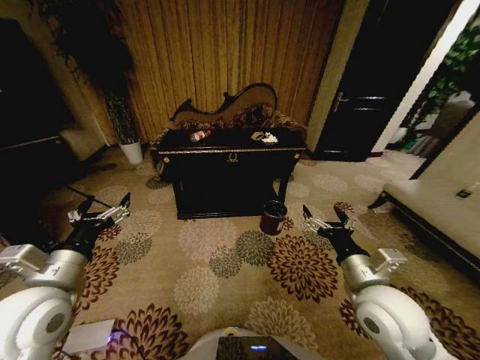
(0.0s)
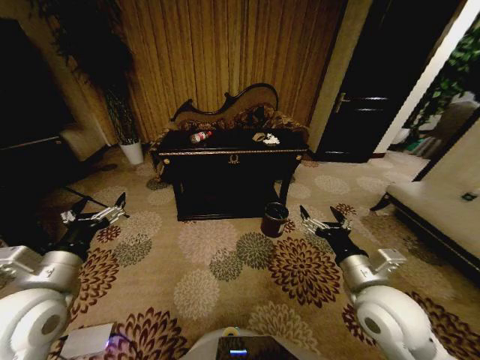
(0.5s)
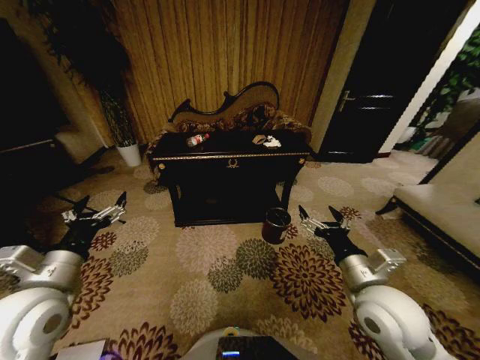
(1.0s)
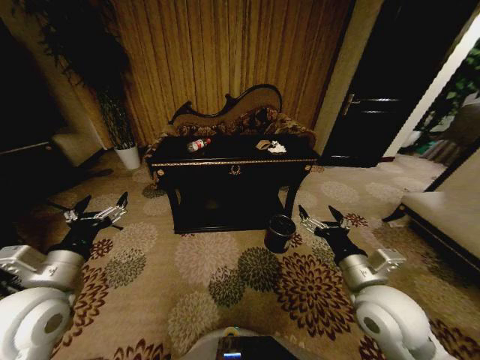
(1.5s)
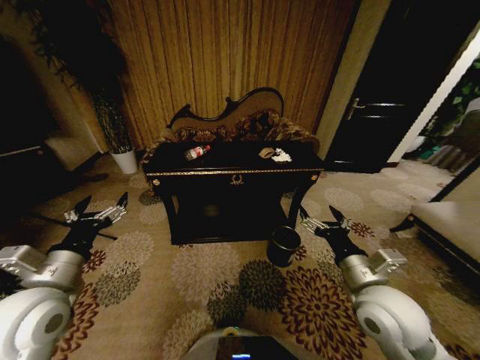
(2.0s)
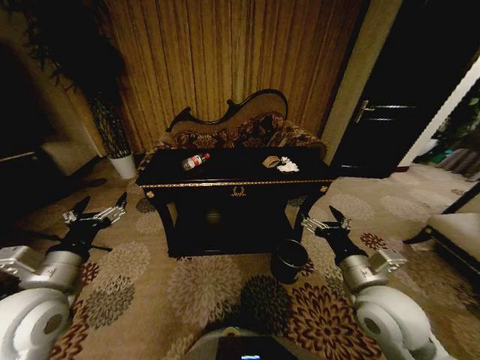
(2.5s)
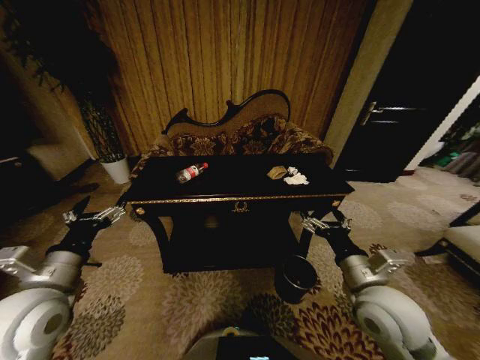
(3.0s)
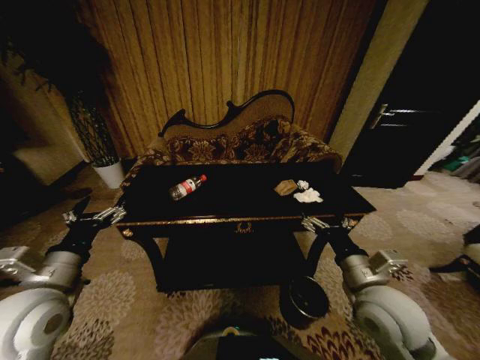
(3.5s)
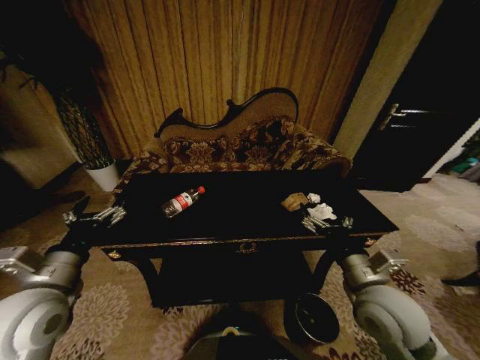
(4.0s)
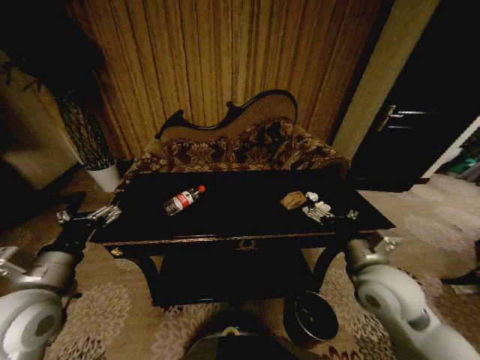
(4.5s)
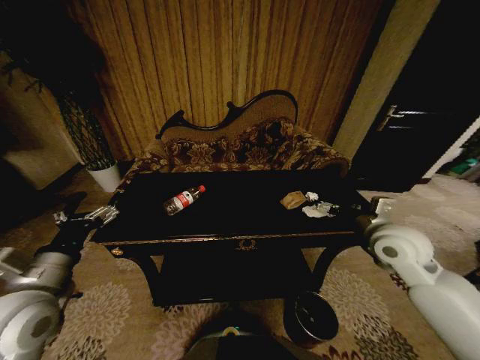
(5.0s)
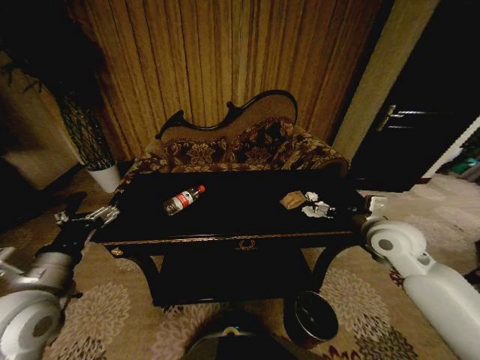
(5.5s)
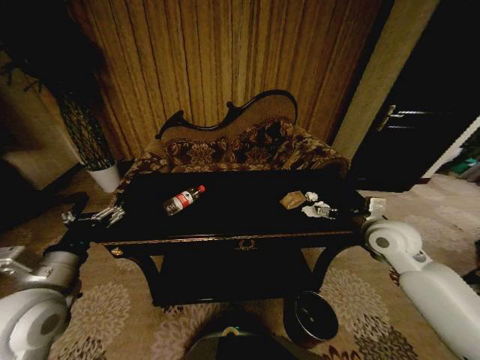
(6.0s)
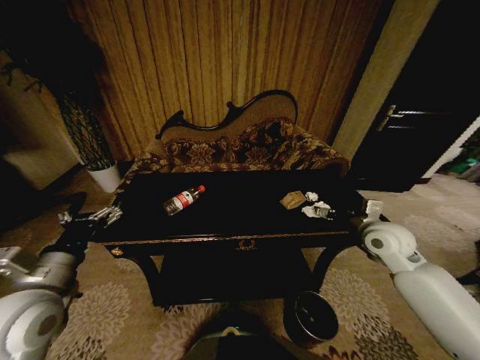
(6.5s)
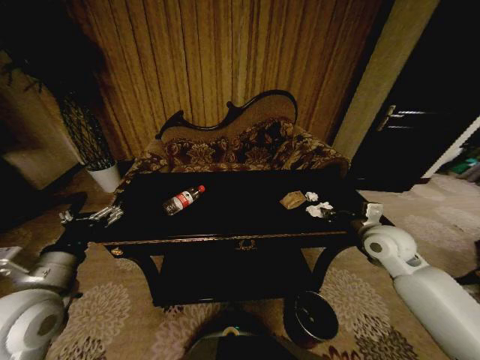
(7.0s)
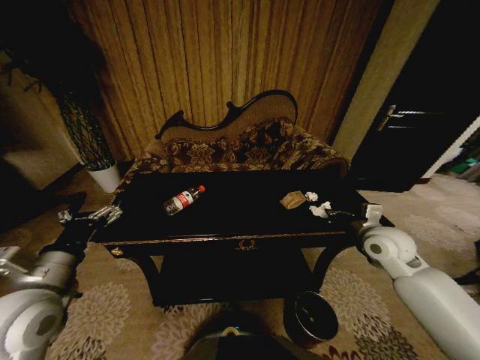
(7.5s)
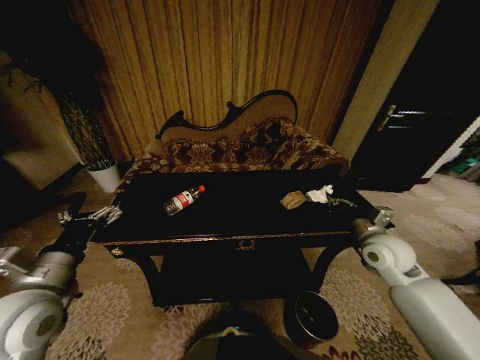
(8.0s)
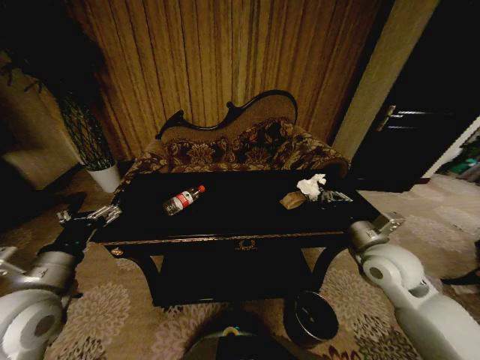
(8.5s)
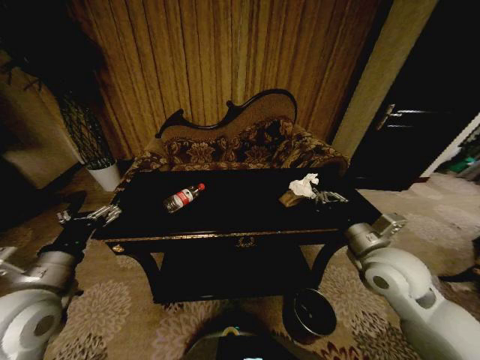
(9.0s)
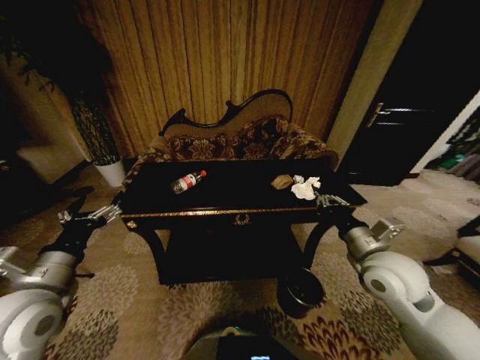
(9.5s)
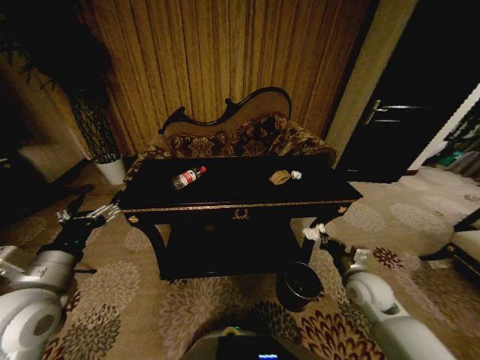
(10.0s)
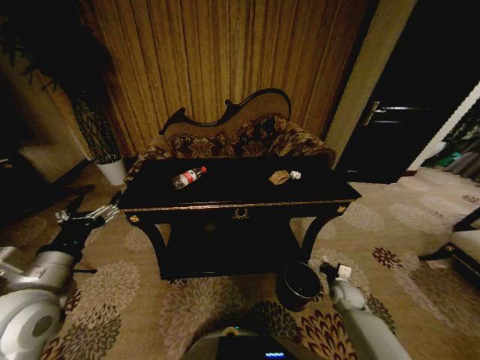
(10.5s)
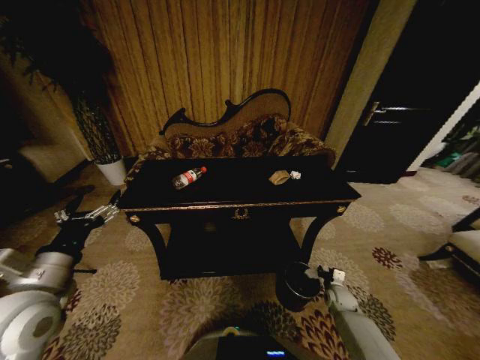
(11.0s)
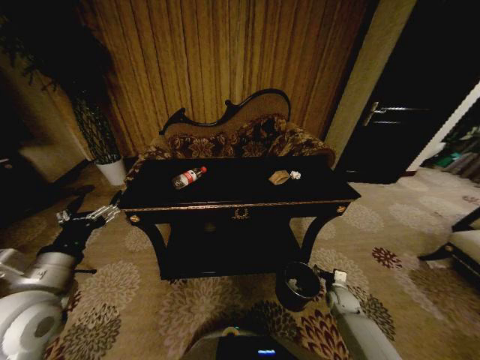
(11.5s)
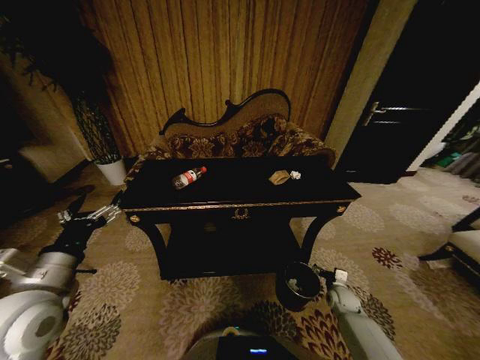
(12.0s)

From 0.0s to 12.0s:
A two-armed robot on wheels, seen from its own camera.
Task of the whole recording: Move to the front of the table and place the trash on the table into the trash bin.
From 4.0s to 6.0s: The right gripper is displaced forward and to the right by about 20 cm.
From 6.0s to 8.0s: The right gripper closes.
From 8.0s to 10.0s: The right gripper goes roughly 15 cm downward.
From 10.0s to 12.0s: The right gripper travels downward by some 15 cm, and opens up.

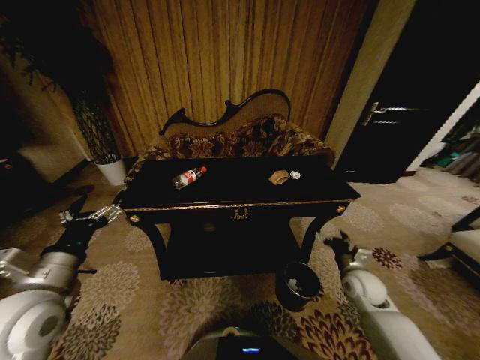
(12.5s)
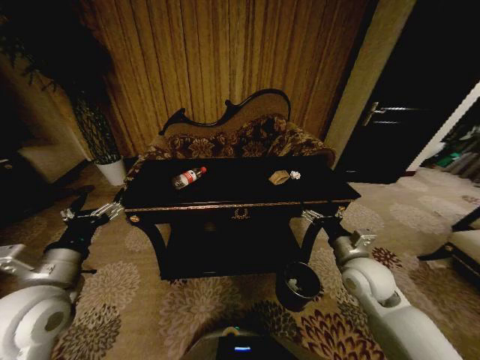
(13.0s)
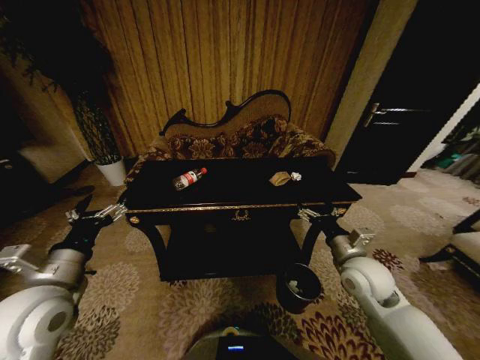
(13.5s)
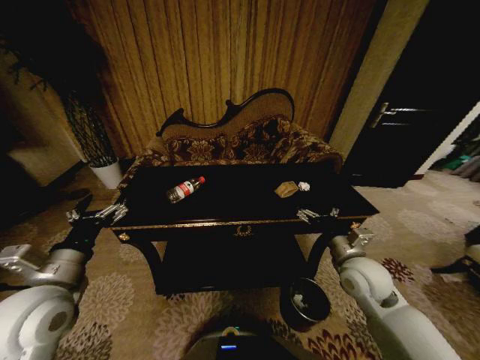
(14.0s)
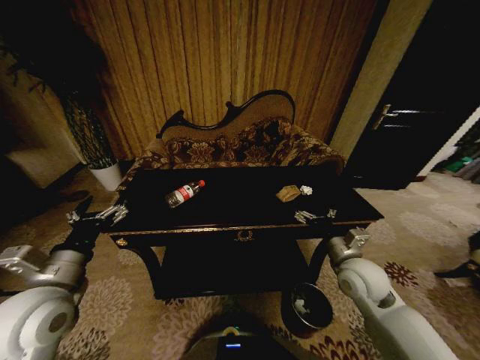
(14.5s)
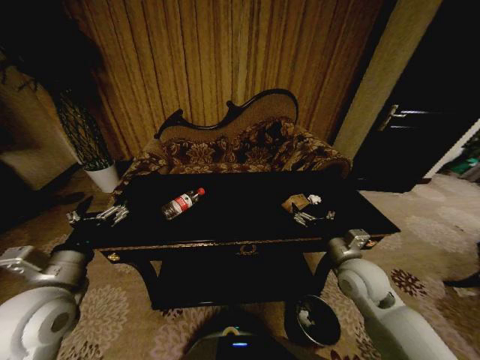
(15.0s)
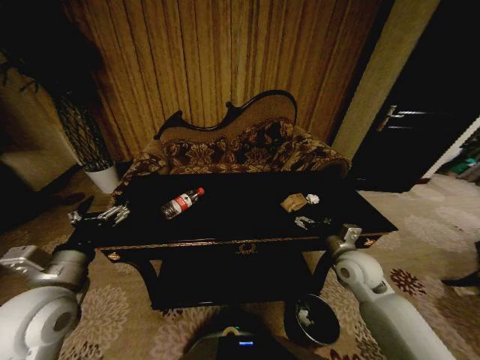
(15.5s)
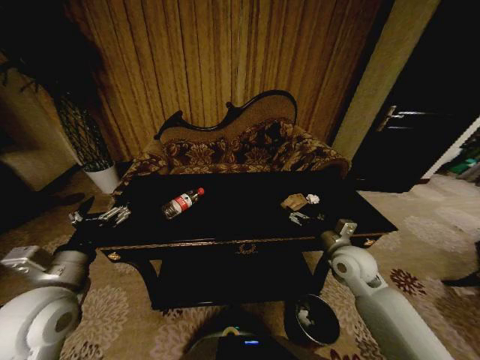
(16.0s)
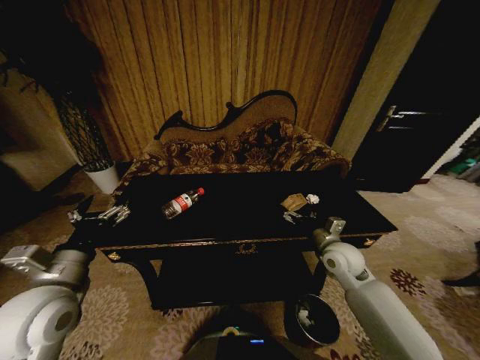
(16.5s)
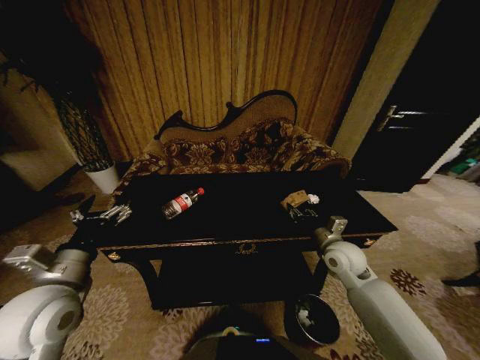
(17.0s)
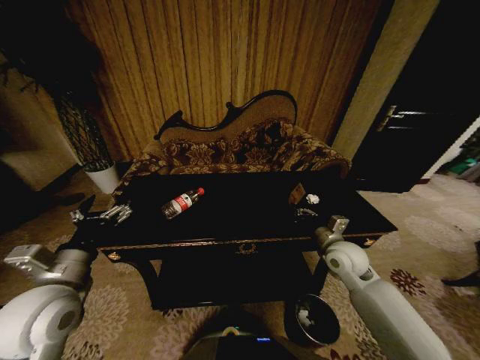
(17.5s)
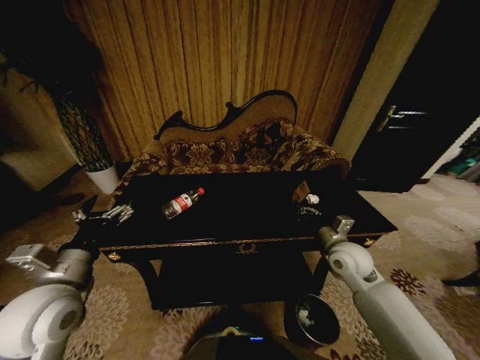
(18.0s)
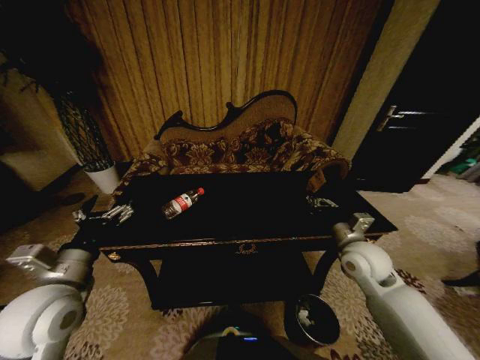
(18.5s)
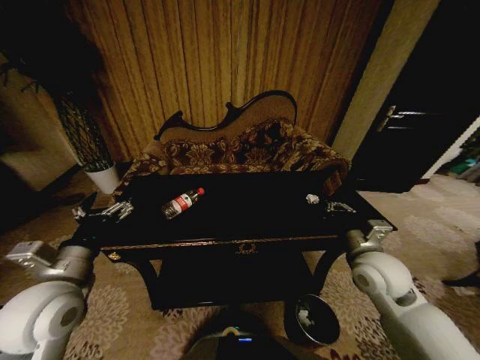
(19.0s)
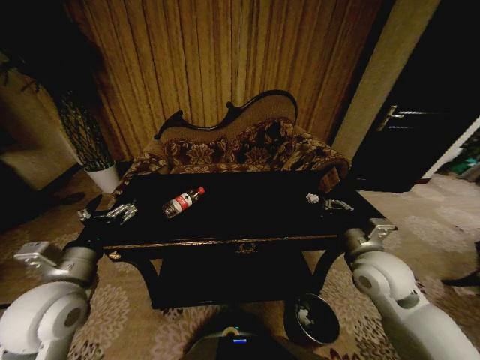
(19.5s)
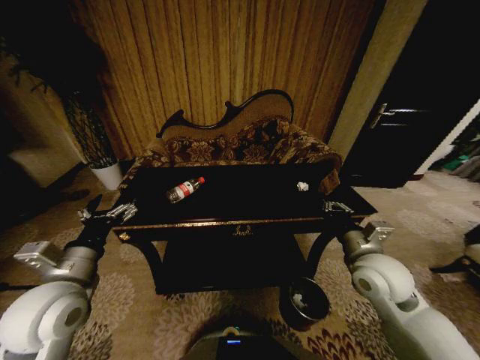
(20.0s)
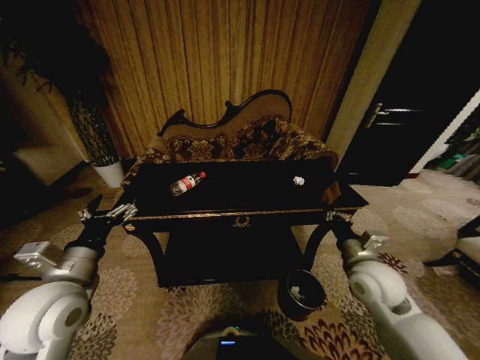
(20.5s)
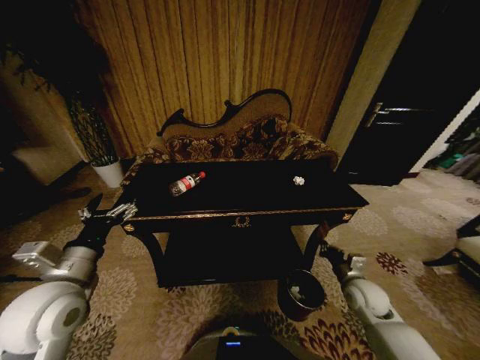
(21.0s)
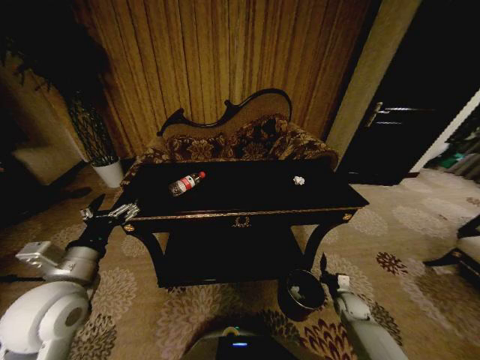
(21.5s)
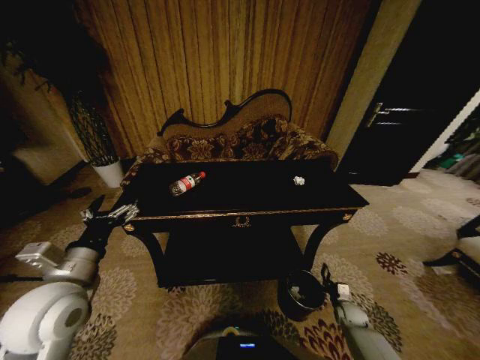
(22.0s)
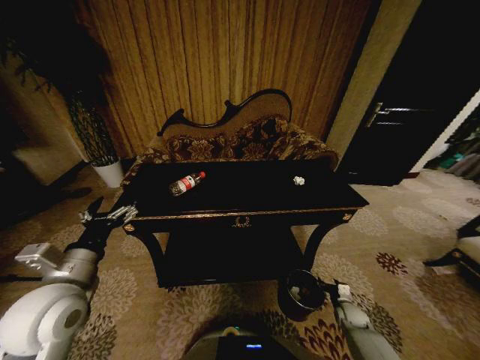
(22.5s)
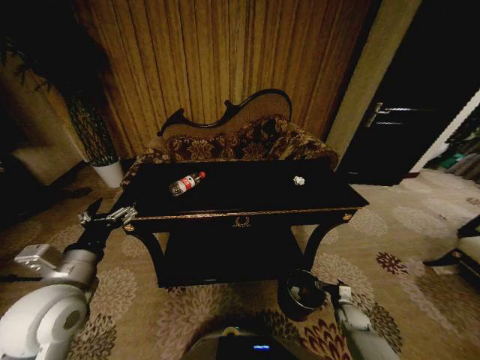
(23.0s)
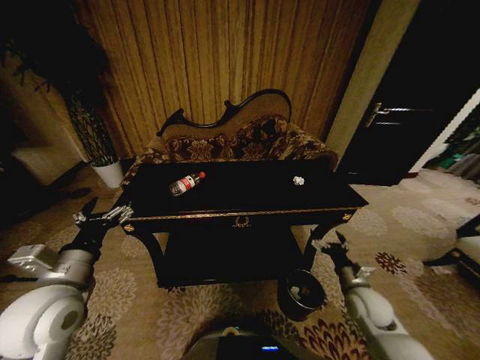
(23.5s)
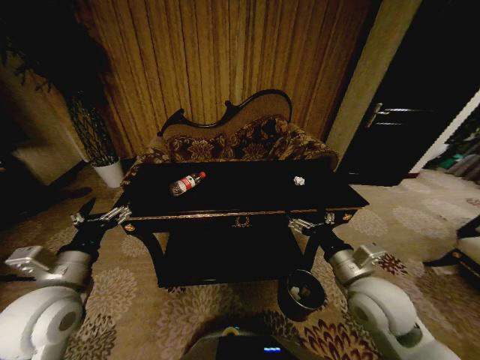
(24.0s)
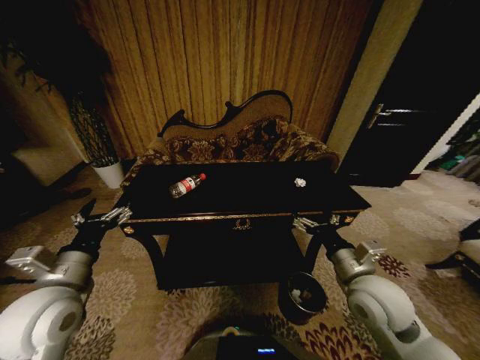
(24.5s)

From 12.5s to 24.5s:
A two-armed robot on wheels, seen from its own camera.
Task of the whole recording: Move to the front of the table and place the trash on the table into the trash bin.
From 12.5s to 14.5s: The right gripper moves upward and to the left, approximately 15 cm.
From 14.5s to 16.5s: The right gripper heads forward, covering some 5 cm.
From 16.5s to 18.5s: The right gripper changes place by approximately 5 cm, and closes its fingers.
From 18.5s to 20.5s: The right gripper moves backward, approximately 5 cm.
From 20.5s to 22.5s: The right gripper heads downward, covering about 30 cm, and opens its fingers.
From 22.5s to 24.5s: The right gripper is displaced upward and to the left by roughly 40 cm, and opens.

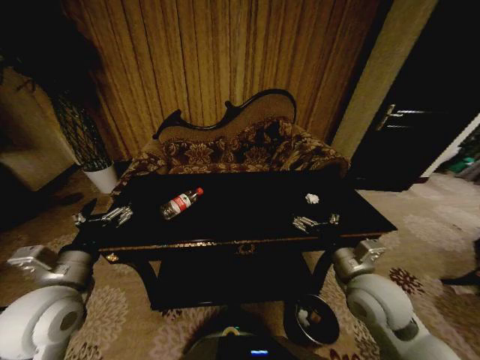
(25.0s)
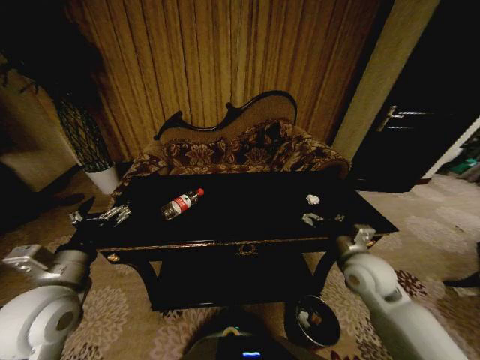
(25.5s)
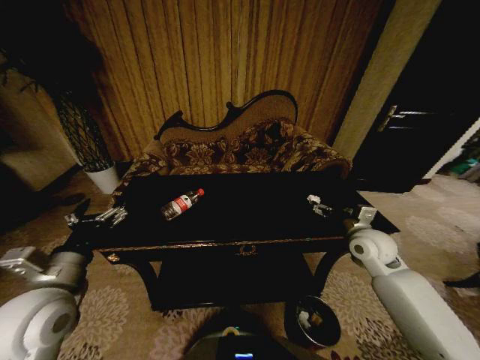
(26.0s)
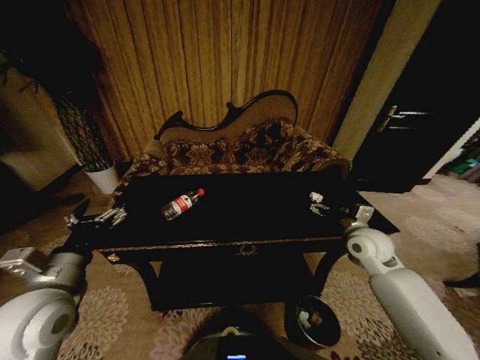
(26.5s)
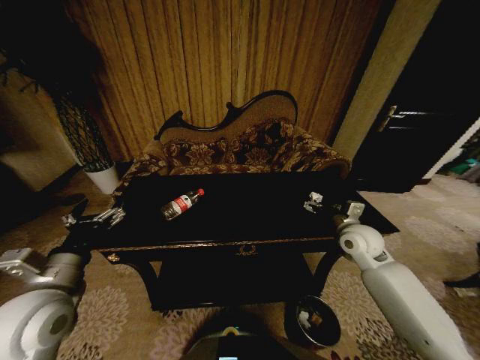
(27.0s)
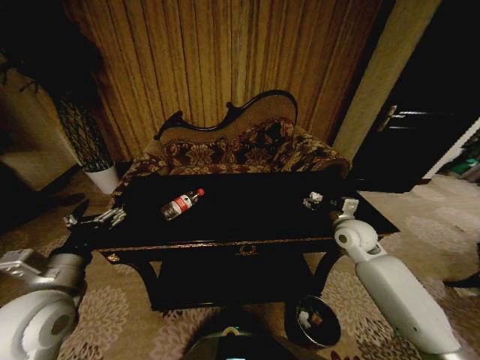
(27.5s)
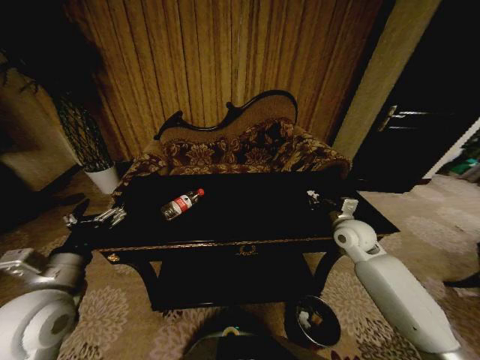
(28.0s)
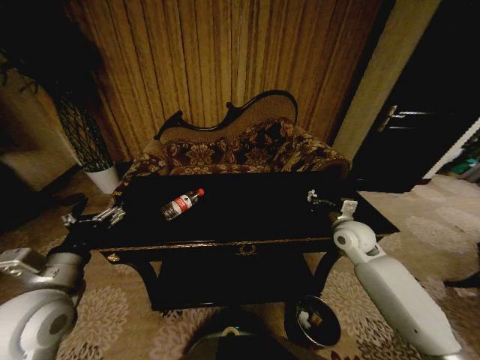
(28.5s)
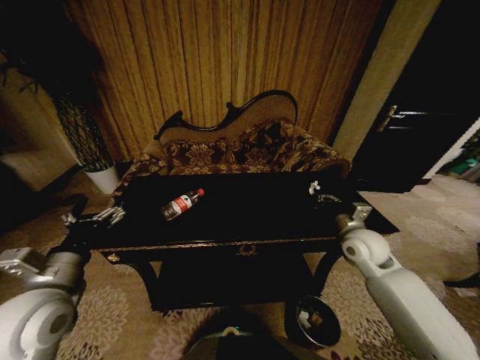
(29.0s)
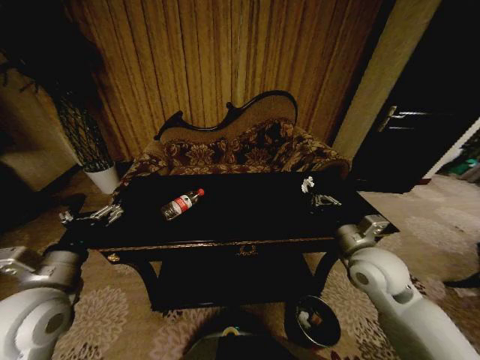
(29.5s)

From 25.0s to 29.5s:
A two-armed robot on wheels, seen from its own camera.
Task of the whole recording: Move to the front of the table and place the trash on the table into the trash bin.
From 25.0s to 27.0s: The right gripper travels forward and to the right by about 15 cm.
From 27.0s to 29.5s: The right gripper moves backward and to the left, some 10 cm, and closes its fingers.
